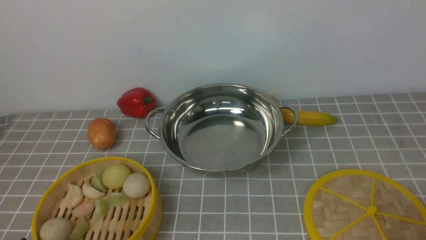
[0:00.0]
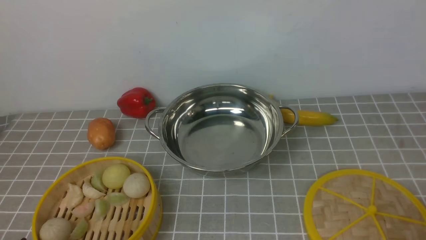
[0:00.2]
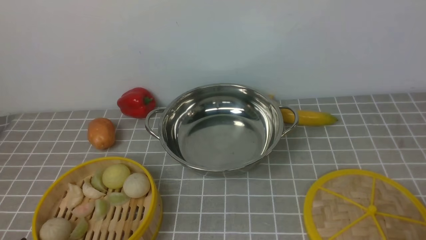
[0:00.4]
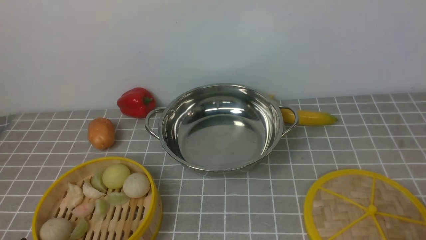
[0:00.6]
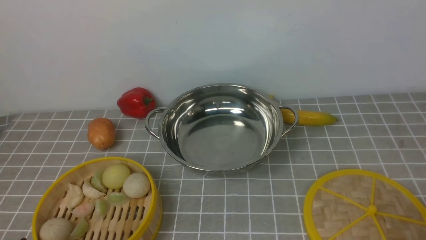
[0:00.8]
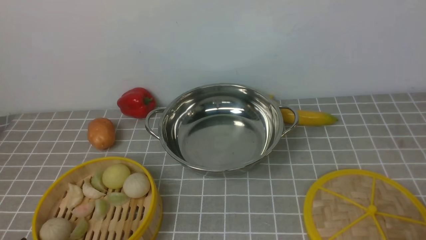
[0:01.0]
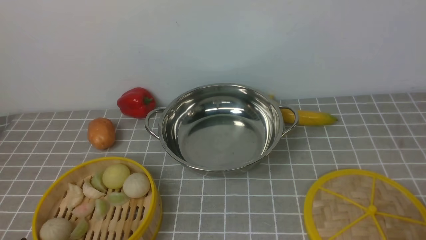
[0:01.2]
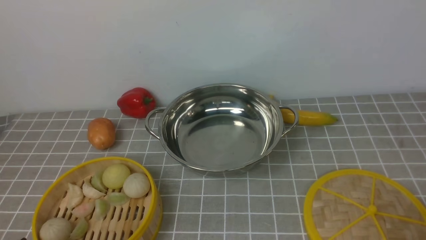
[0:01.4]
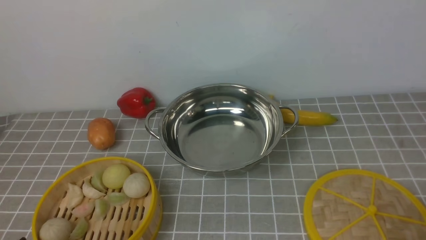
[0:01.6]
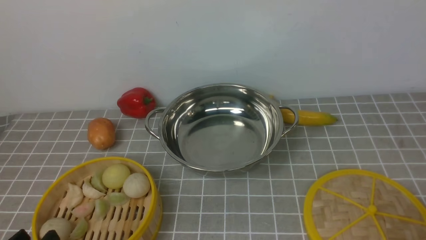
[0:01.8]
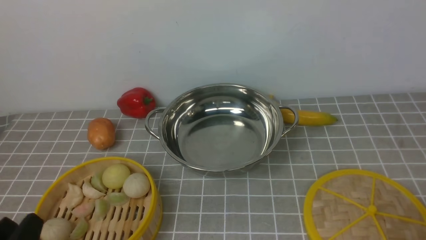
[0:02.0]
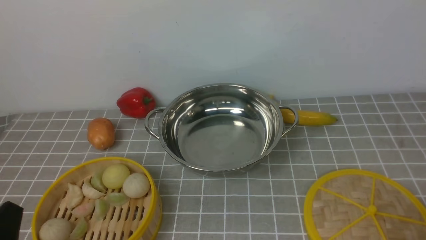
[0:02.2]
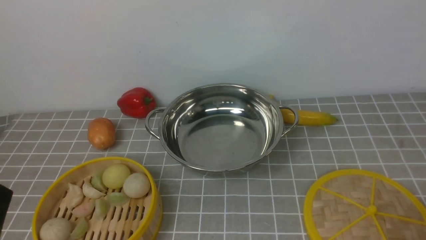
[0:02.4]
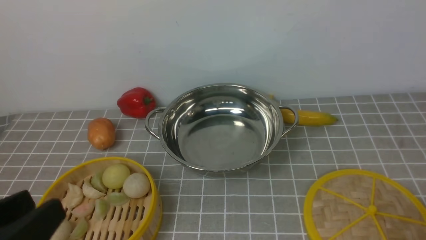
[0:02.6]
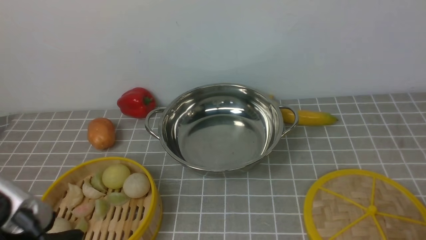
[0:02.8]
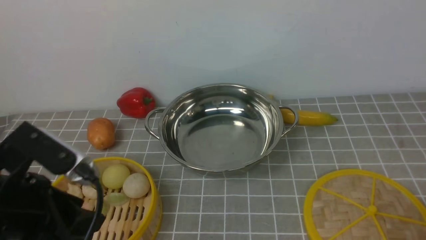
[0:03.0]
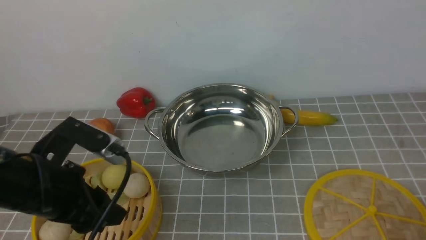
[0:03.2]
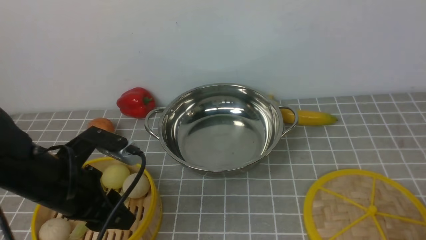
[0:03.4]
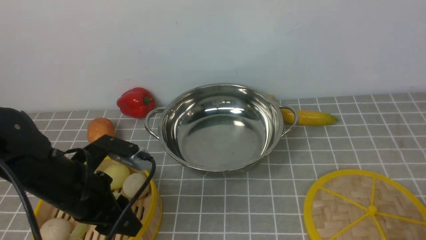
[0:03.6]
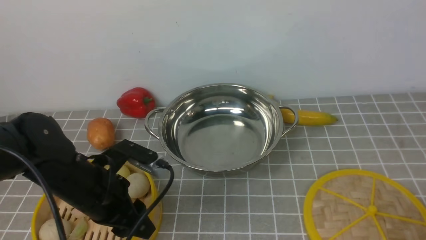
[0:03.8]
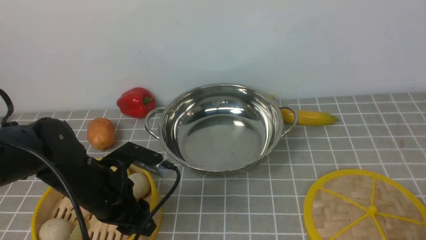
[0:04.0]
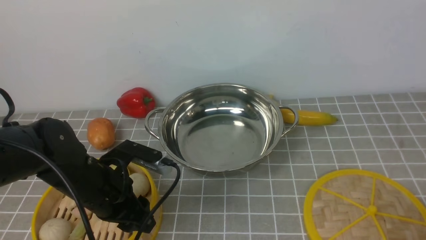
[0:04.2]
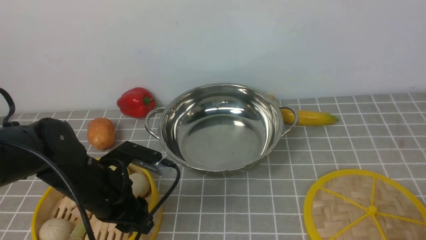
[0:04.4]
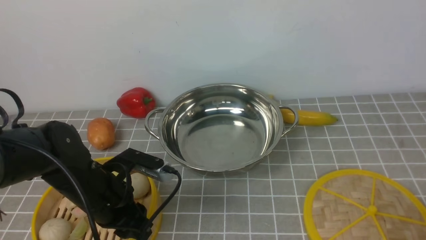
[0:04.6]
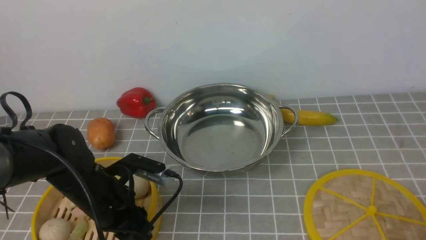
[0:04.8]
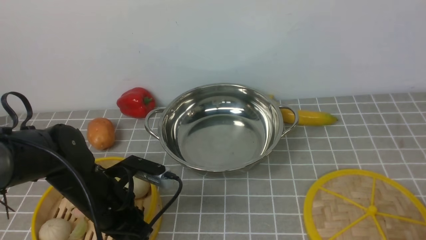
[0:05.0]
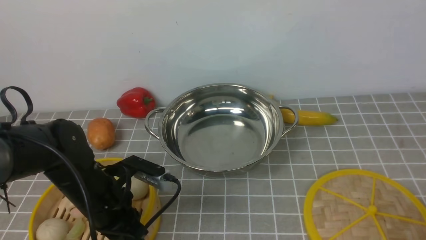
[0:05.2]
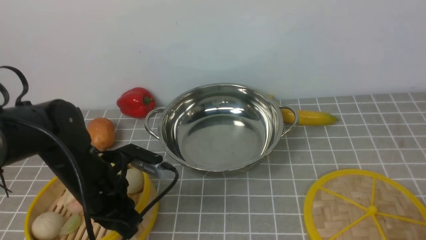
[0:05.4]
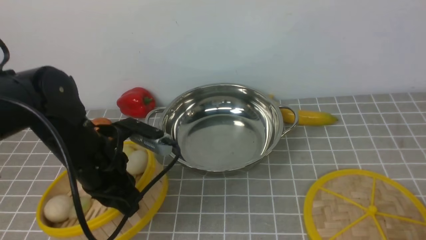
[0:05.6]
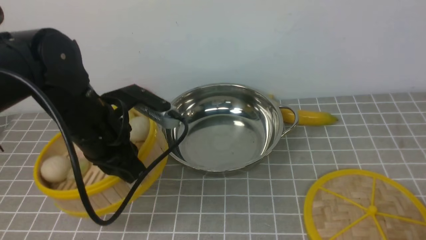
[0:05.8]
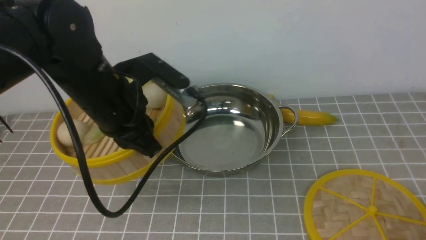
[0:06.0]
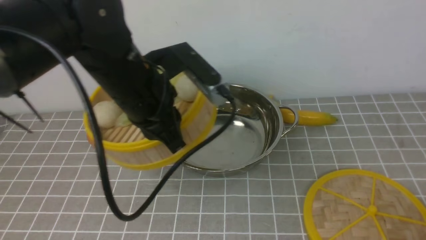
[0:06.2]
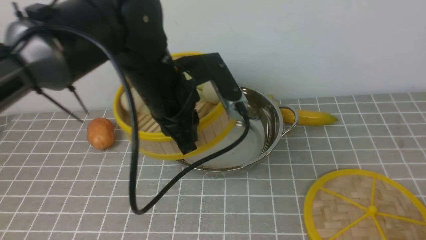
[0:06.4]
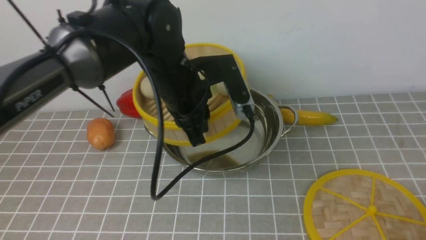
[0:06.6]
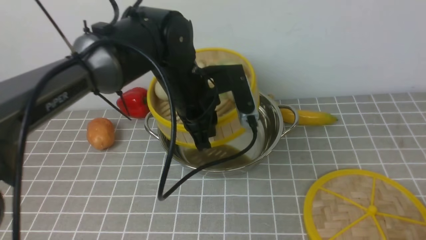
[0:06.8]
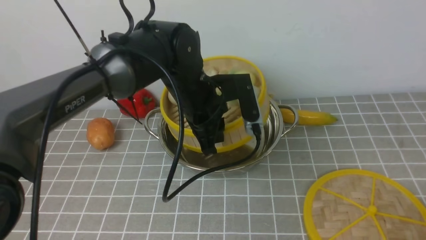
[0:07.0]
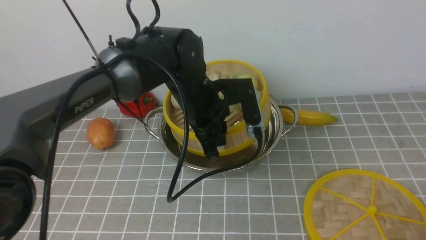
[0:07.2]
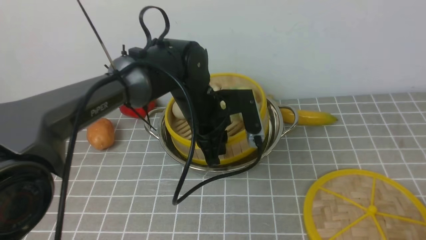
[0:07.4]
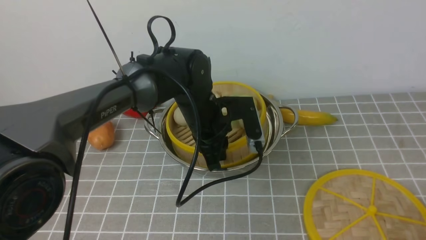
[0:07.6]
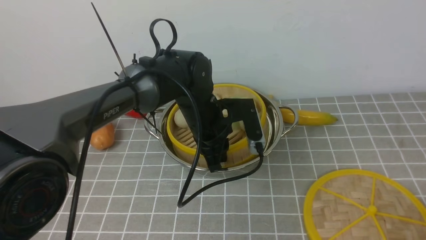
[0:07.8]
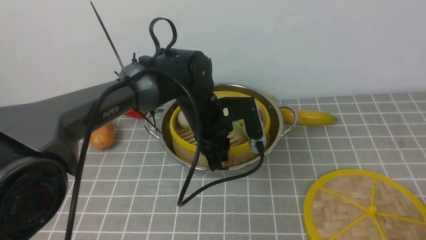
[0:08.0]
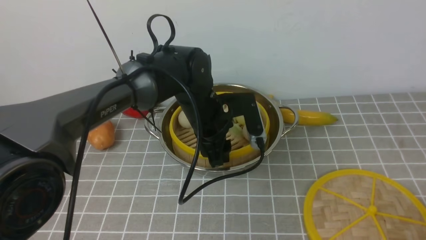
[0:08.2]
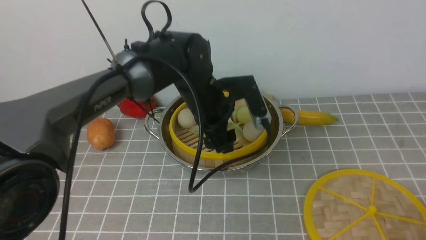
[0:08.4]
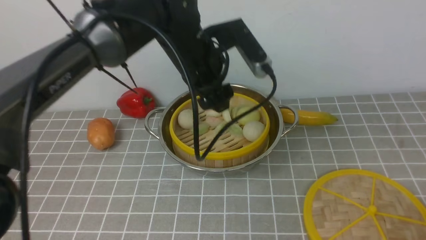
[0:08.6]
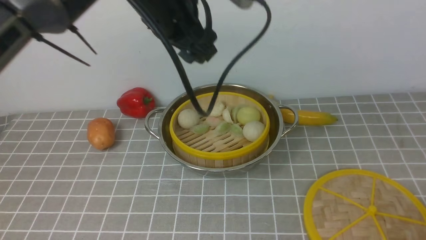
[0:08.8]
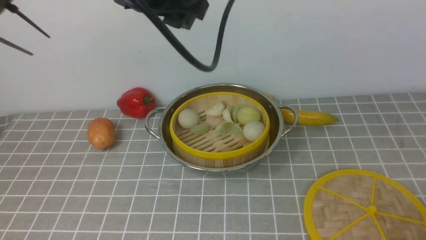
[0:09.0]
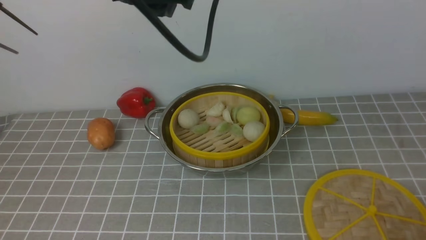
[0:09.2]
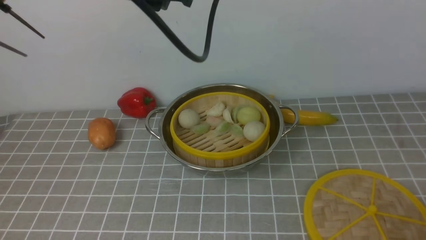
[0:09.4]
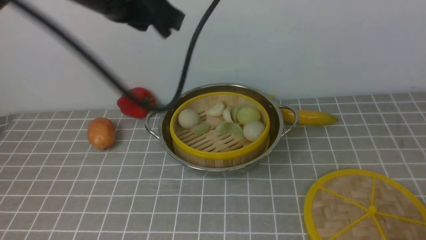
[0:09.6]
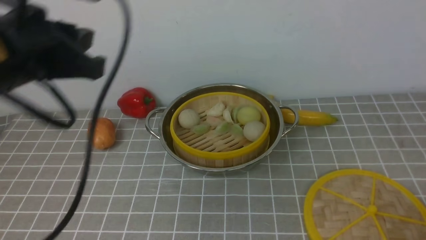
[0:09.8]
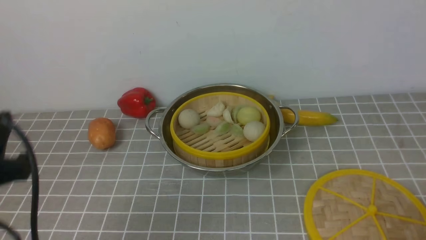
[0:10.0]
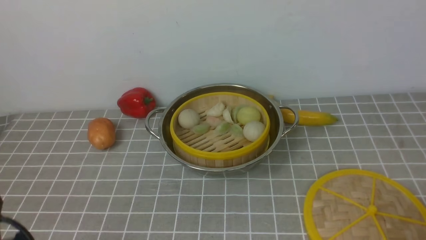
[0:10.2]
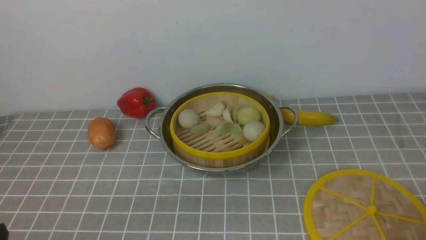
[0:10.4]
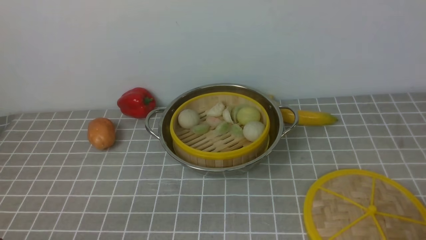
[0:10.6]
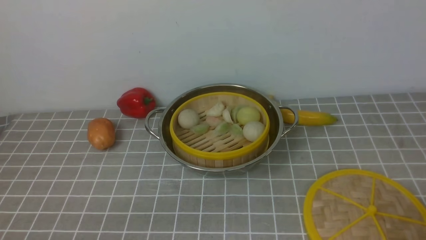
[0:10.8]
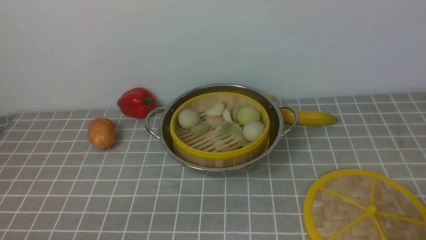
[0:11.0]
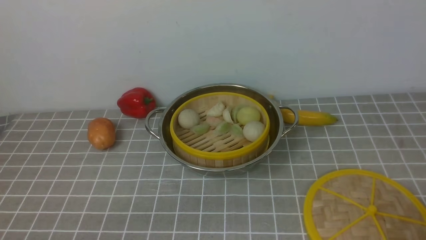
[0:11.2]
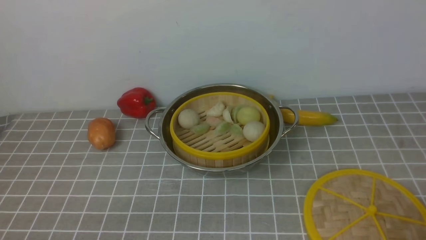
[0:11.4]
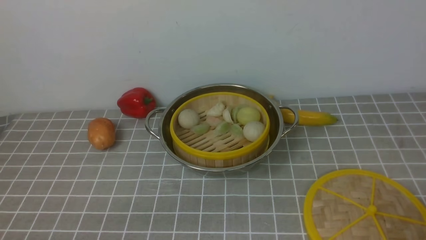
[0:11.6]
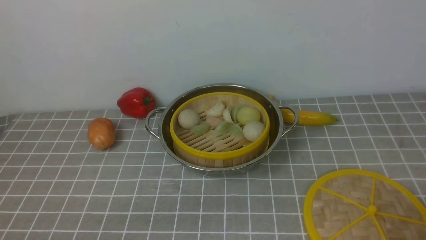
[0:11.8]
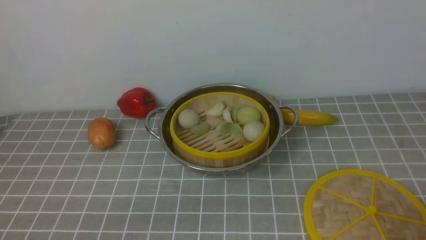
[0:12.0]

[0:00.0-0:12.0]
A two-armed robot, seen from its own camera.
Task of the whole recording: place the steamer in the pot on the grey tablecloth, and put the lid on the steamer.
Step, 0.0 to 5.4 s: use the left arm to lift the steamer closest to it.
Step, 5.6 to 8.2 s: use the left arm to put the steamer into the iron steamer pot in the middle.
1.6 to 3.0 s: The left gripper travels upward and forward by roughly 15 cm.
3.0 to 4.4 s: The left gripper heads downward and forward, covering about 15 cm.
4.4 to 6.0 s: The left gripper goes roughly 15 cm upward, and closes its fingers.
6.0 to 7.6 s: The left gripper goes approximately 15 cm downward, to the right and forward.
7.6 to 9.0 s: The left gripper travels upward by about 25 cm, and opens its fingers.
9.0 to 10.4 s: The left gripper goes some 40 cm backward, downward and to the left, and closes its fingers.

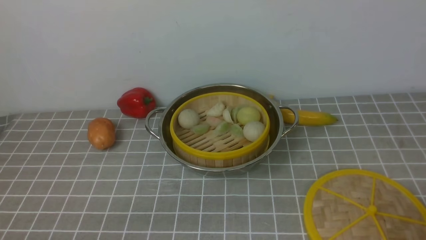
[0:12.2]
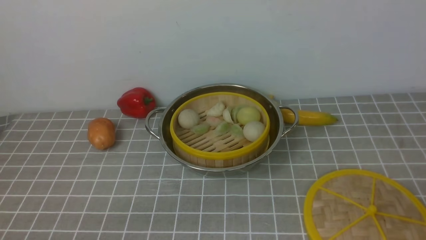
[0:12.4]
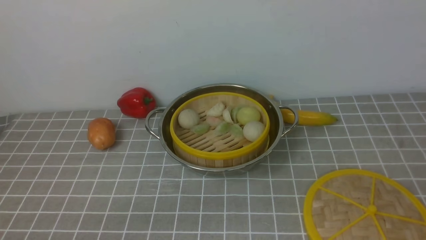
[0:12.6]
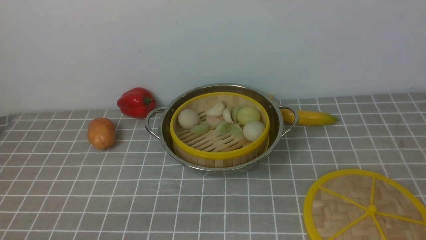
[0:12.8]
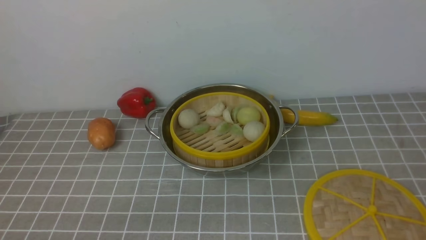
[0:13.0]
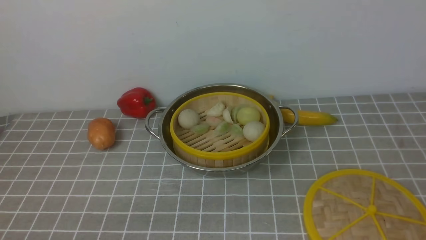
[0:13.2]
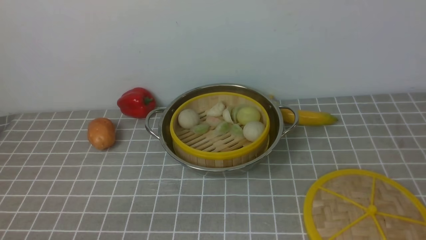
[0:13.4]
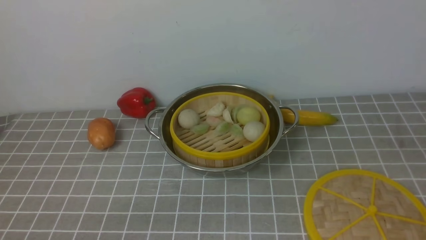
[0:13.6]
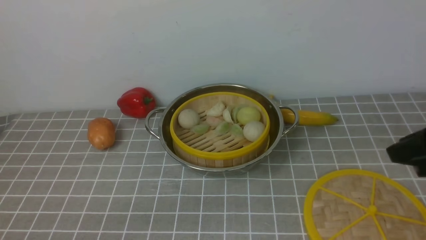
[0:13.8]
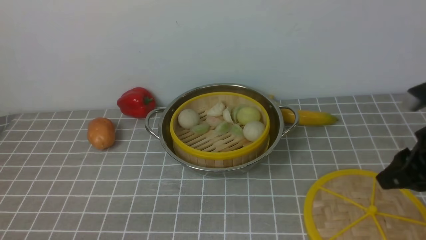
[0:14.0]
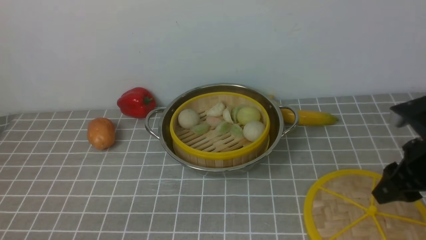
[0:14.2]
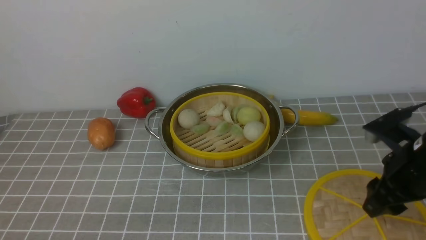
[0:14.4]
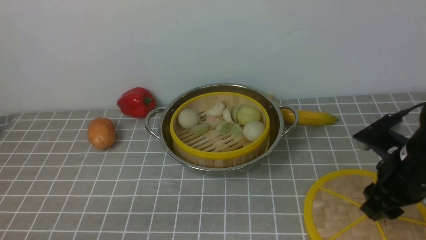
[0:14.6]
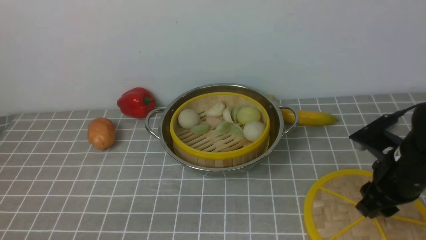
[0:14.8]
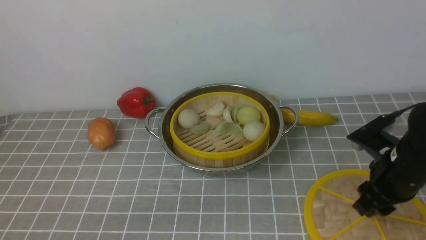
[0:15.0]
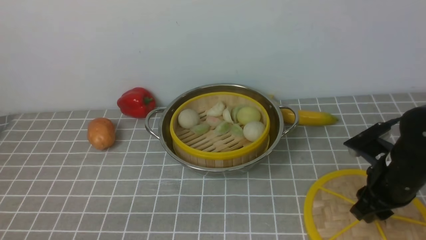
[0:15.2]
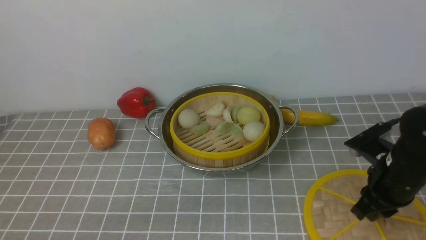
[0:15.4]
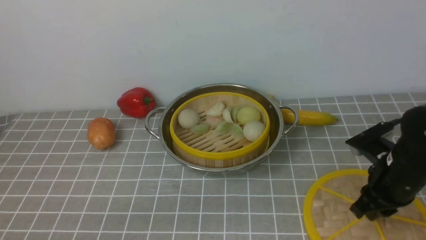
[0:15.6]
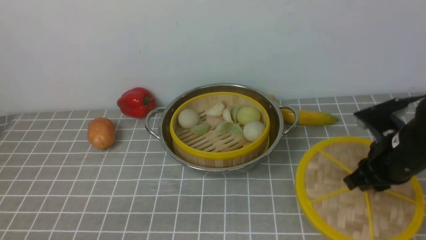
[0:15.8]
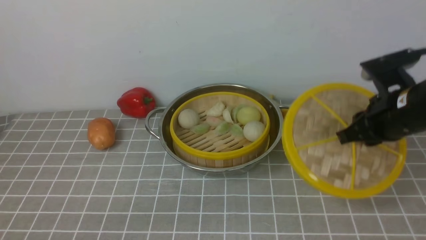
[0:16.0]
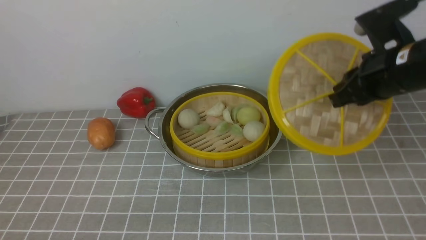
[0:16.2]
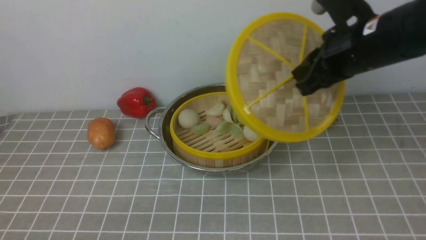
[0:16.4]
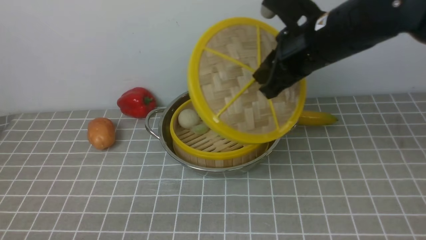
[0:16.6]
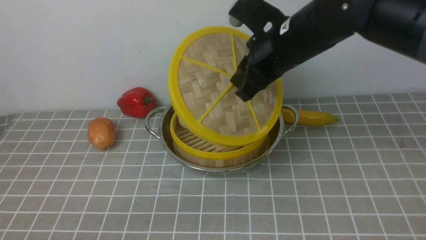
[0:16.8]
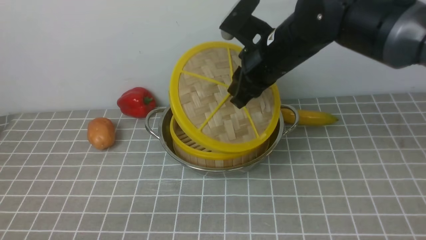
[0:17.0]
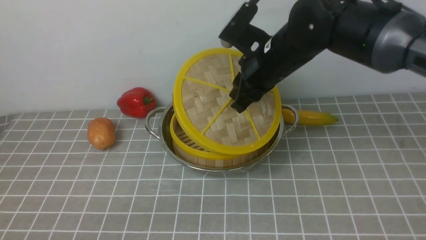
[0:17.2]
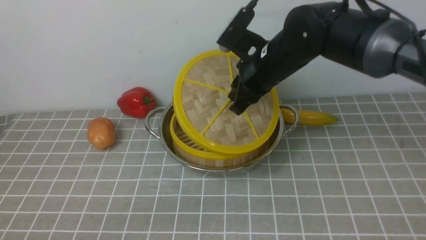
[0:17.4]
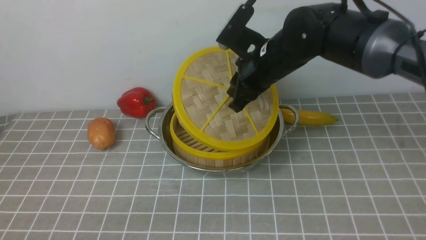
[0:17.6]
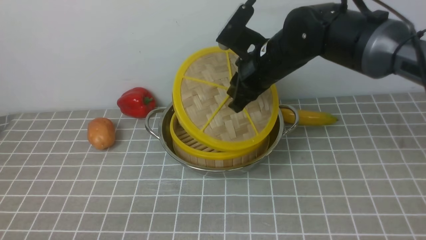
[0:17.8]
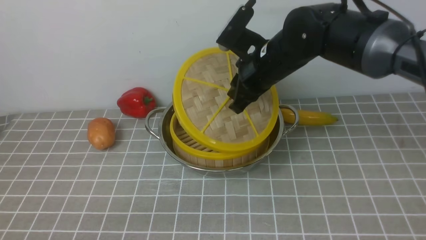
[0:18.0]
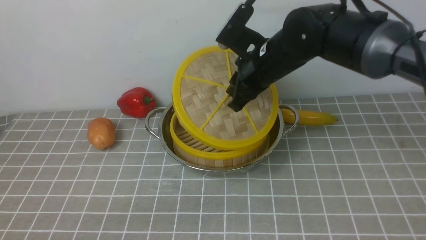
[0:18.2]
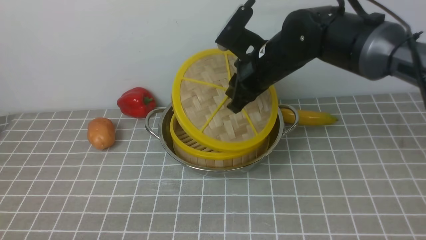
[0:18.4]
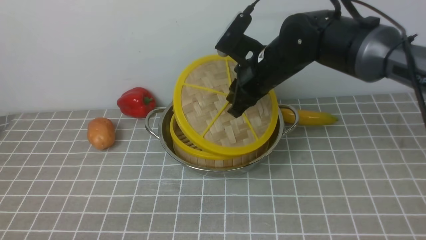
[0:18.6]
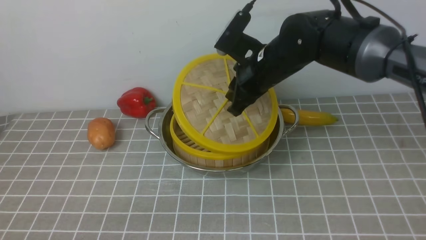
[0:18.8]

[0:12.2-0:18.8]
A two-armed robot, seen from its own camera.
Task of the whole recording: place the steamer in the pot on the grey tablecloth, and put the lid on the steamer.
Step, 12.2 to 15.6 s: use the right arm to lift the lid of the steamer.
12.2 to 13.8 s: The right gripper travels forward and upward by approximately 20 cm.
13.8 to 15.4 s: The right gripper is displaced downward and forward by approximately 15 cm.
15.4 to 17.2 s: The right gripper is displaced to the left, forward and upward by about 25 cm.
17.2 to 18.8 s: The grippers stay close to where they were, moving slightly.
